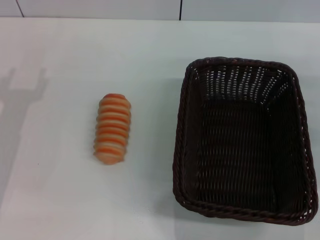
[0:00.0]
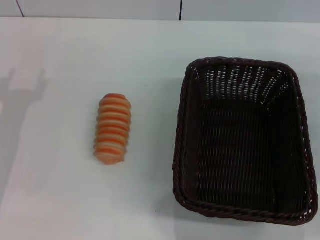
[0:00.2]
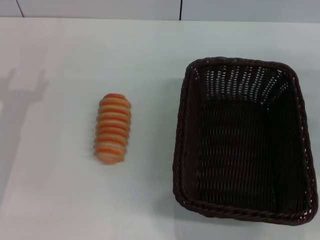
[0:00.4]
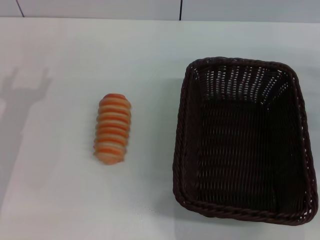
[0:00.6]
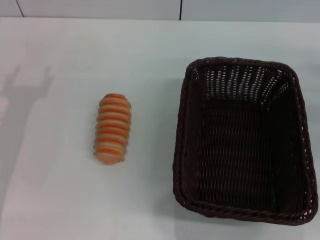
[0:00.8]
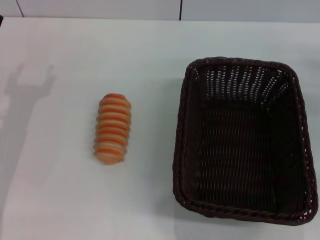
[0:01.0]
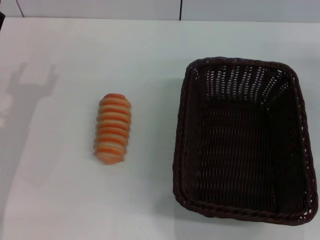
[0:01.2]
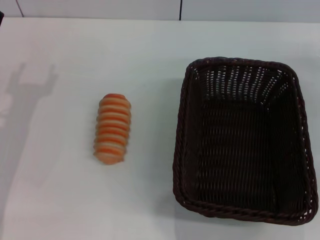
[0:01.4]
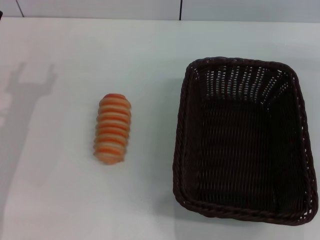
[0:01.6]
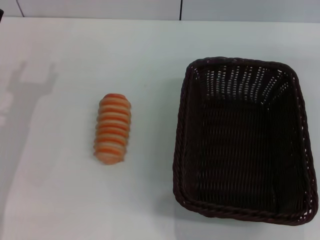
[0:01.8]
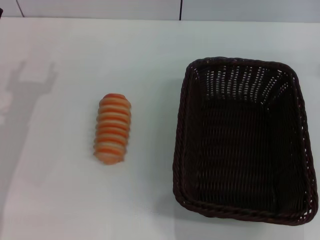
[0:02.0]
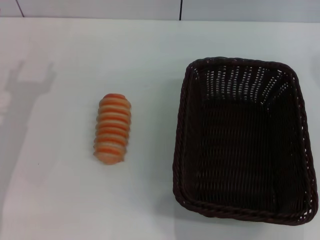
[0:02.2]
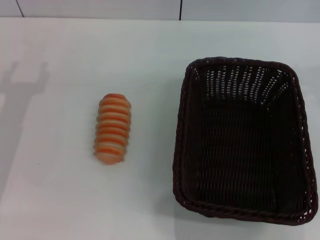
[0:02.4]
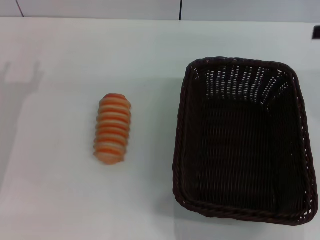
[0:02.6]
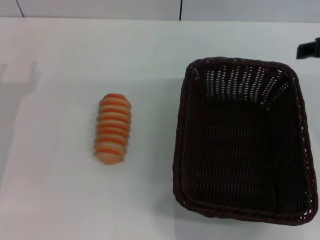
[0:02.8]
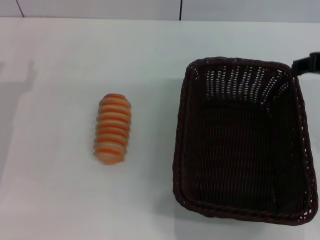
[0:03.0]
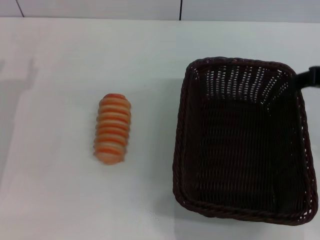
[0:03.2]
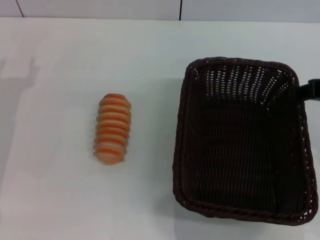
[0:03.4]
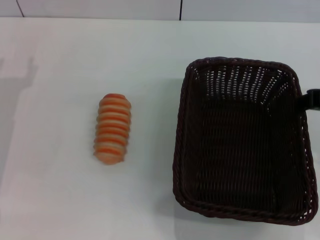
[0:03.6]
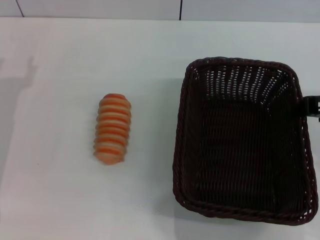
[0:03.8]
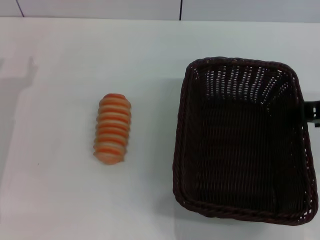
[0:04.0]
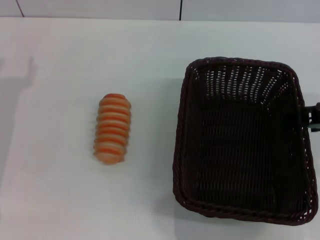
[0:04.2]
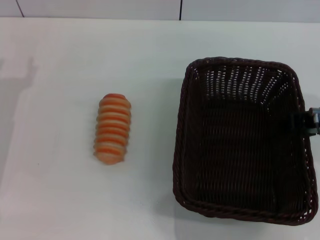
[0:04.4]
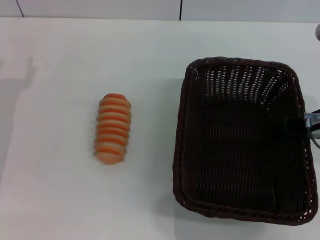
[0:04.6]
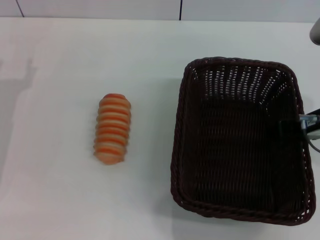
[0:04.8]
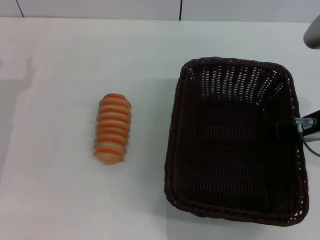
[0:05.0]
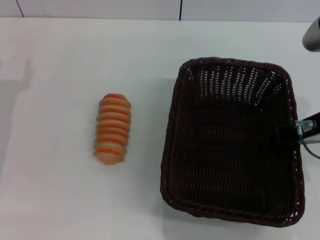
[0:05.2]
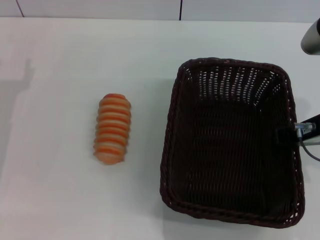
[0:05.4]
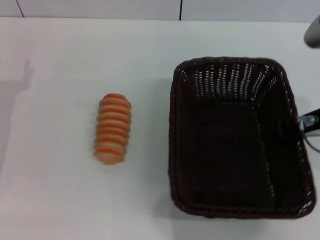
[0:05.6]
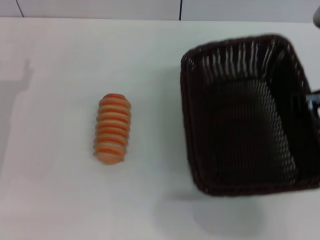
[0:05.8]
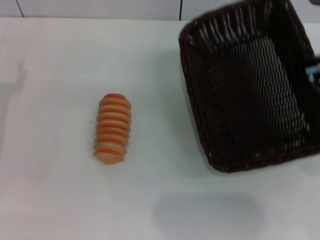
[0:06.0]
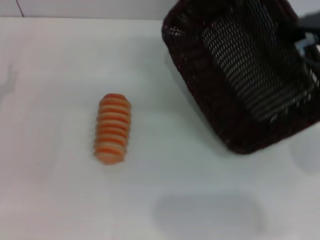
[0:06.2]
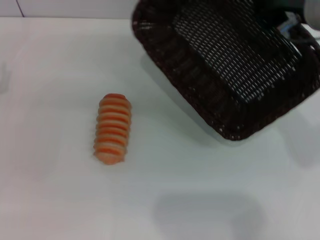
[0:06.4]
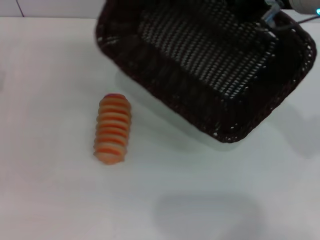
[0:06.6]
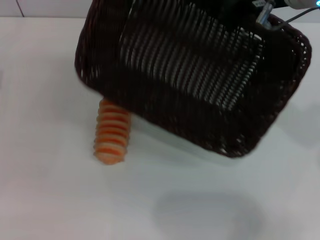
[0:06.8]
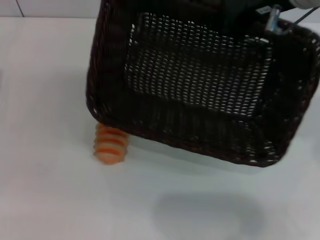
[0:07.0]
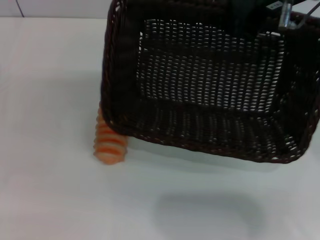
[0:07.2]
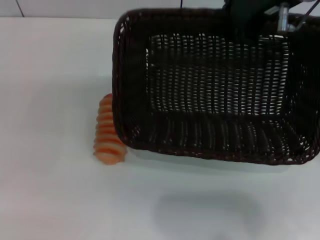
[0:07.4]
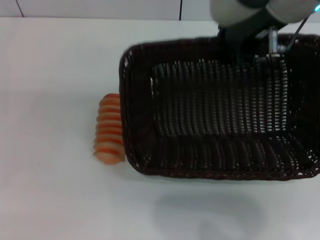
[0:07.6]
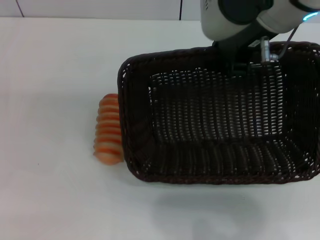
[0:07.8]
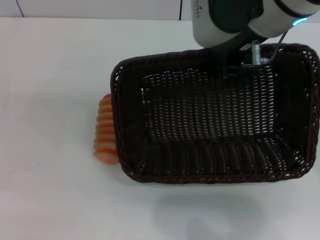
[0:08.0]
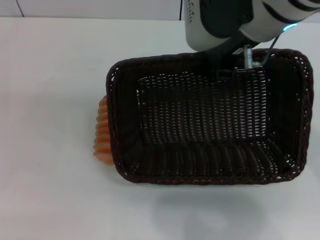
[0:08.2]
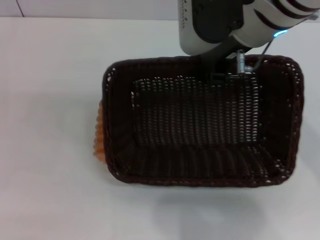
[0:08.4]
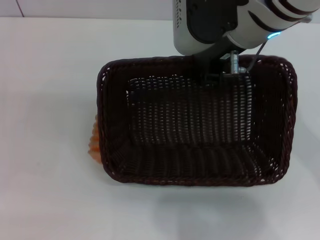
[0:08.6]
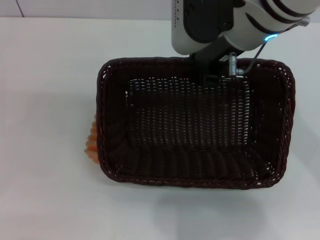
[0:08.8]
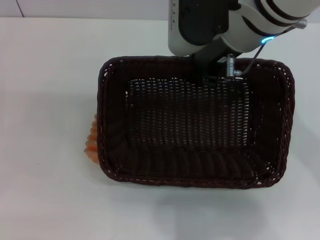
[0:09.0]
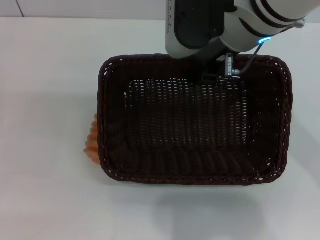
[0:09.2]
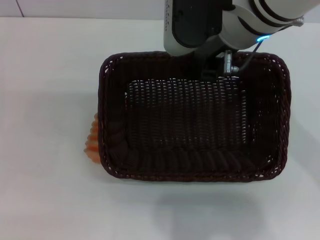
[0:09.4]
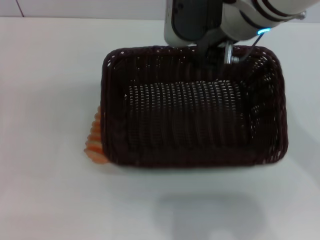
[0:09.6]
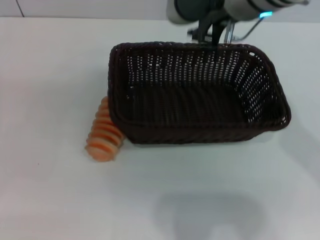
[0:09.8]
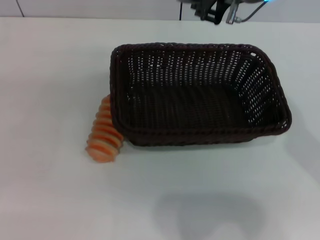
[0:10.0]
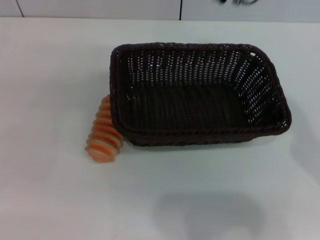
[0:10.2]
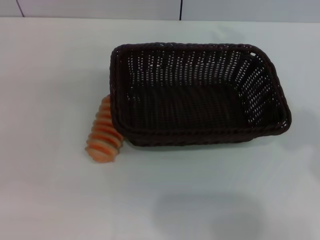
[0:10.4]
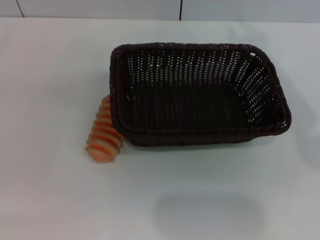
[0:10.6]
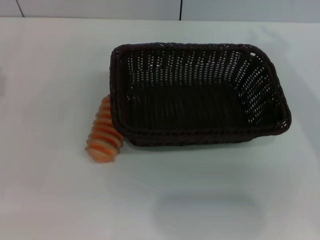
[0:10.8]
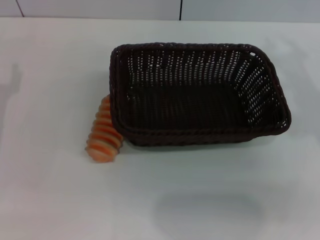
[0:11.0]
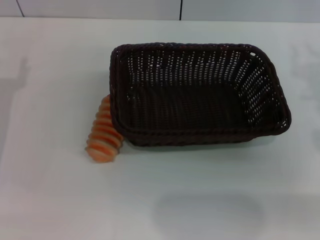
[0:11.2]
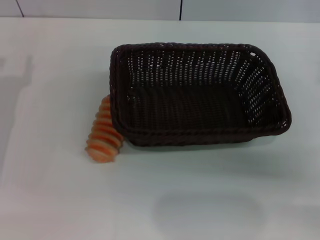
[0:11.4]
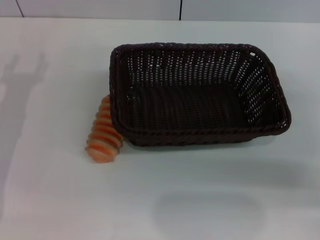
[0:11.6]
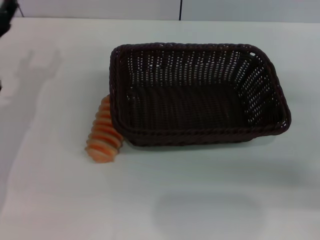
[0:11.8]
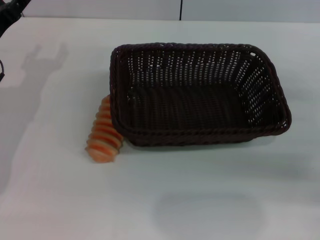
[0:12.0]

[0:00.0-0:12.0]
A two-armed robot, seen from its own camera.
Step, 0:00.0 to 0:06.0: Pick up the dark basket with the right gripper.
Step, 0:06.2 to 0:09.8: Place the dark basket in the center of view with the right gripper.
0:01.6 to 0:03.0: The right gripper shifts approximately 15 cm to the left, upward and backward.
0:03.0 to 0:04.4: The right gripper heads downward, covering some 5 cm.
0:04.4 to 0:06.0: The right gripper closes its fingers.
0:06.0 to 0:07.6: The right gripper is displaced to the left and upward by some 10 cm.
0:07.6 to 0:09.0: The right gripper shifts by about 5 cm.
0:09.0 to 0:10.4: The right gripper goes about 10 cm to the right and upward.
0:10.4 to 0:12.0: The left gripper heads forward and to the right, covering about 10 cm. Meanwhile the right gripper heads to the right and downward, covering about 30 cm.

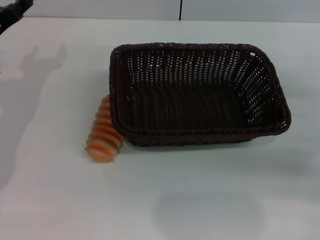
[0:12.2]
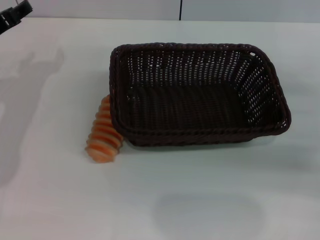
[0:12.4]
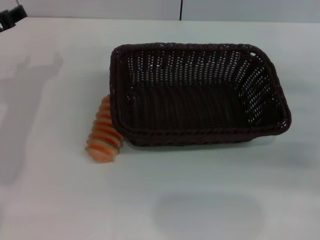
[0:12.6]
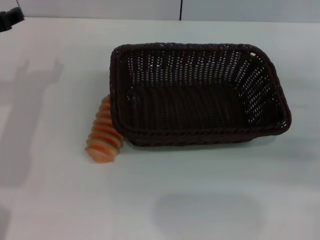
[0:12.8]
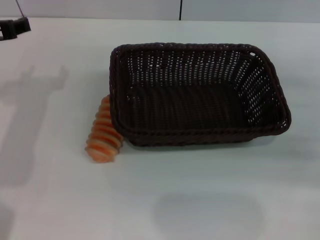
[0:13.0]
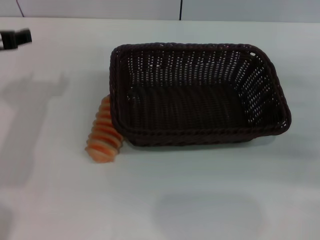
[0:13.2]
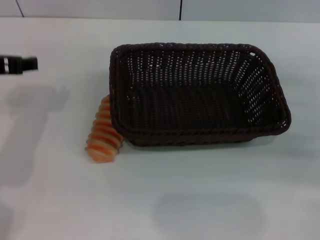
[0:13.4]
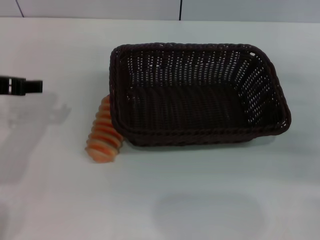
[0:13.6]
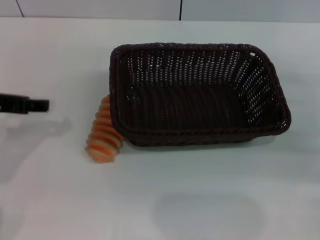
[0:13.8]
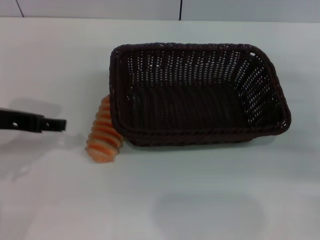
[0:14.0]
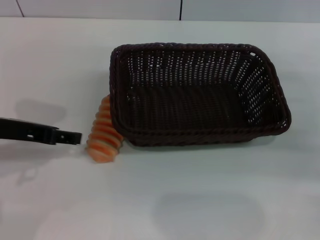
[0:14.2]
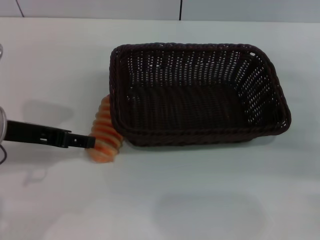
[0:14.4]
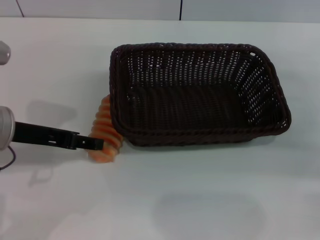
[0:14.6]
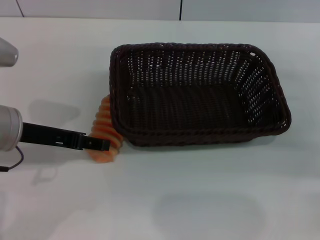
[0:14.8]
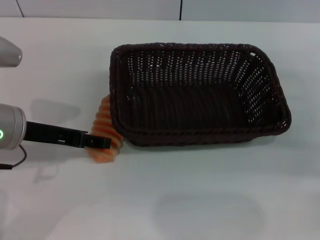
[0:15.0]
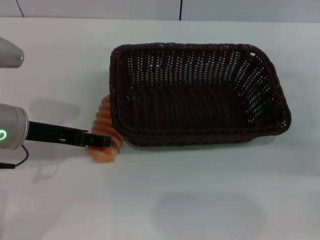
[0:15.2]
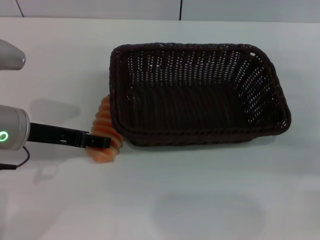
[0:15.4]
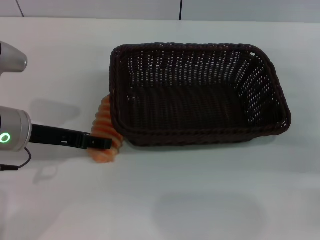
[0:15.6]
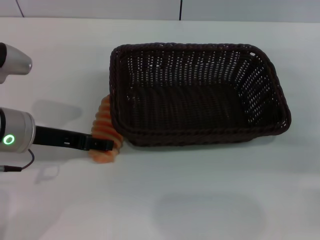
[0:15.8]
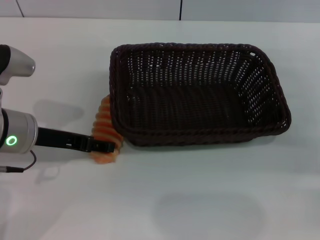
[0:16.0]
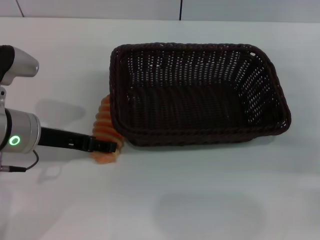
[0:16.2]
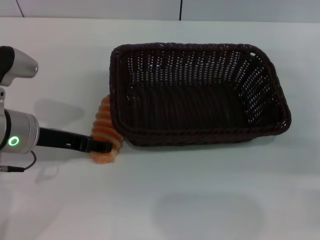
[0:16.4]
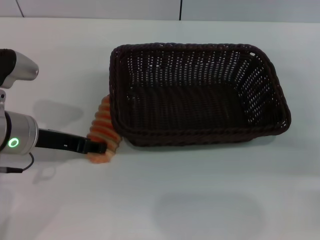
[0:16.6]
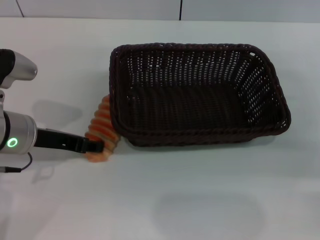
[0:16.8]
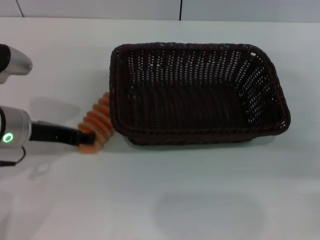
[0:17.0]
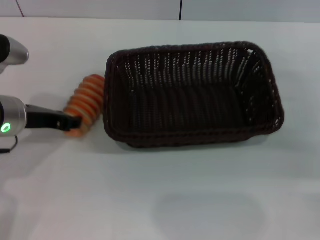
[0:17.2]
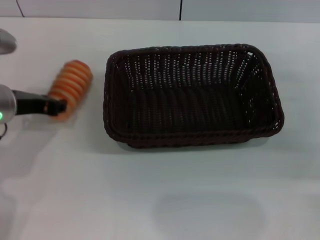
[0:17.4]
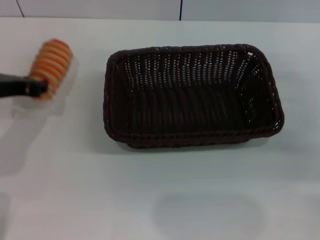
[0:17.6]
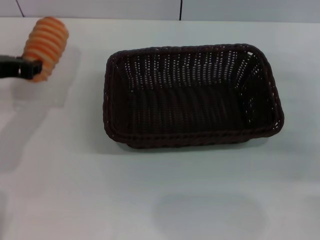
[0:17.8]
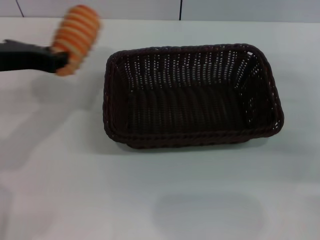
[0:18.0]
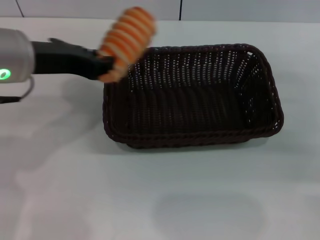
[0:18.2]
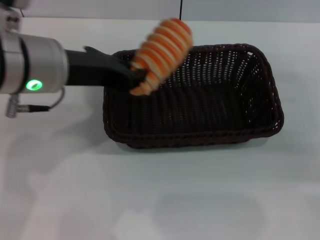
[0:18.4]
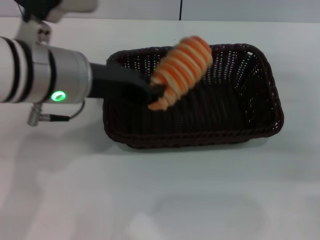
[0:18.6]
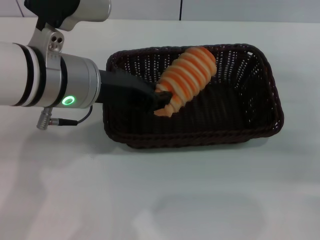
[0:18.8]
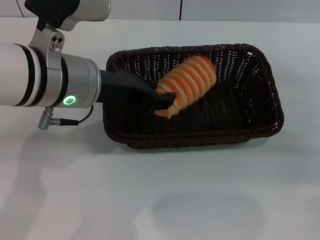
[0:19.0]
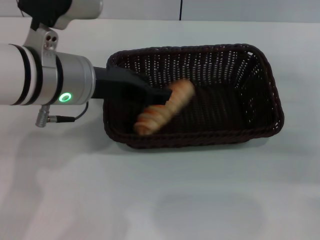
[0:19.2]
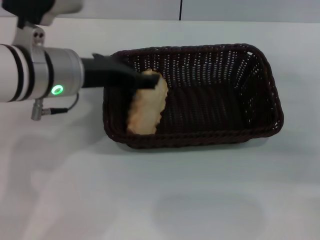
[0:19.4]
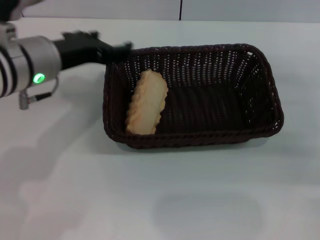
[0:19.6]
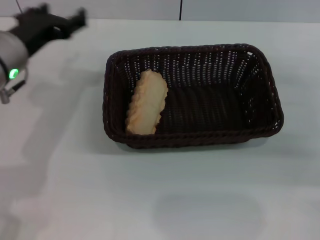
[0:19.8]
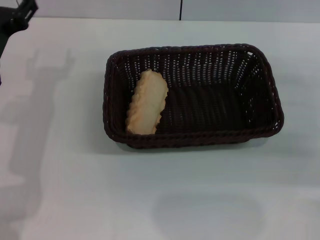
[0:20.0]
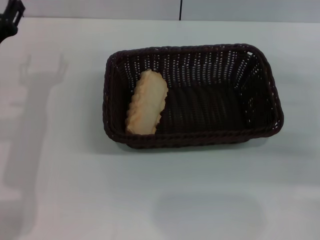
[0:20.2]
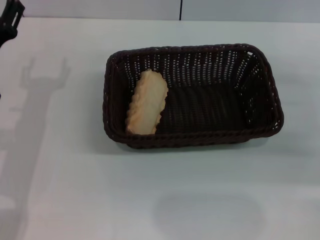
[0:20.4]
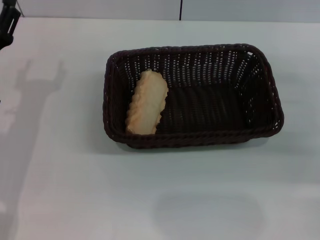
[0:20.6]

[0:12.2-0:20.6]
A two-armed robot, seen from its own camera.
Step, 0:12.2 to 0:17.6: Pick up the long bread with the left gripper.
Step, 0:17.8 to 0:19.2: Place the long bread into the dark basket with the left gripper.
0:12.2 to 0:13.6: The left gripper travels upward and backward by approximately 10 cm.
0:13.6 to 0:15.0: The left gripper heads downward, covering approximately 5 cm.
0:15.0 to 0:16.4: The grippers stay close to where they were, moving slightly.
0:16.4 to 0:17.8: The left gripper travels upward by about 5 cm, and closes.
0:17.8 to 0:19.2: The left gripper travels to the right by approximately 15 cm.
0:19.2 to 0:20.6: The left gripper heads to the left and downward, covering about 15 cm, and opens up.
